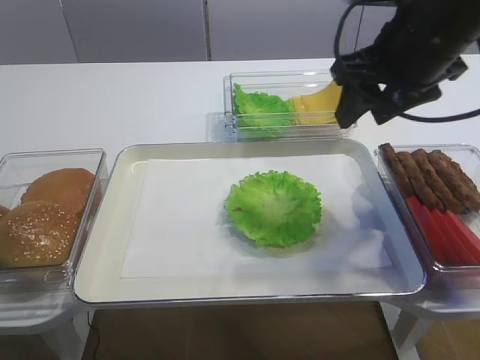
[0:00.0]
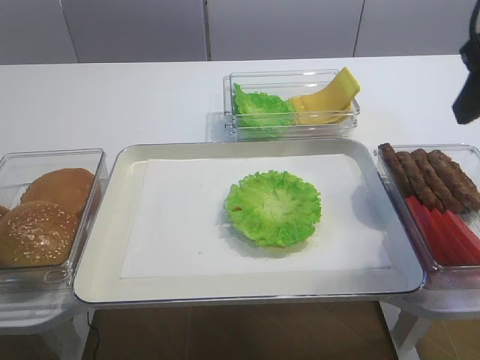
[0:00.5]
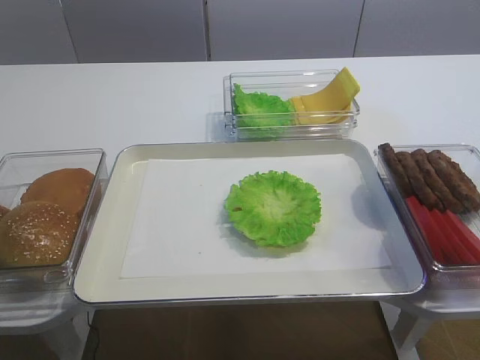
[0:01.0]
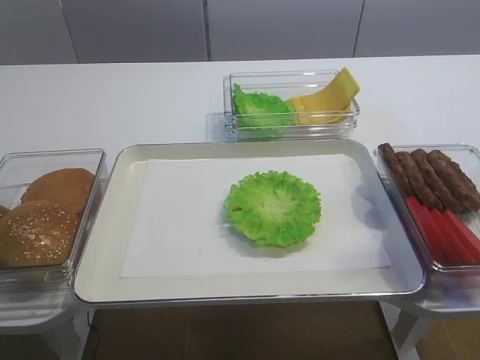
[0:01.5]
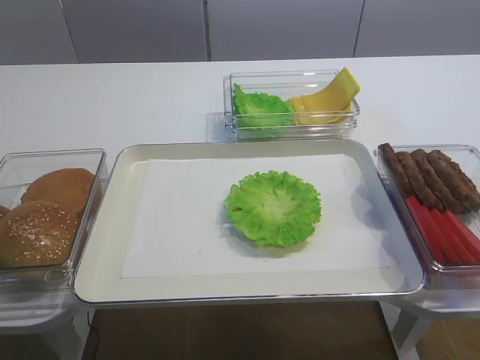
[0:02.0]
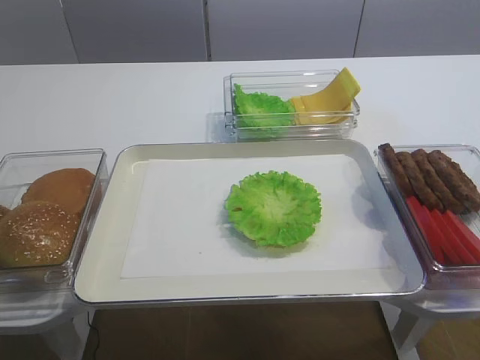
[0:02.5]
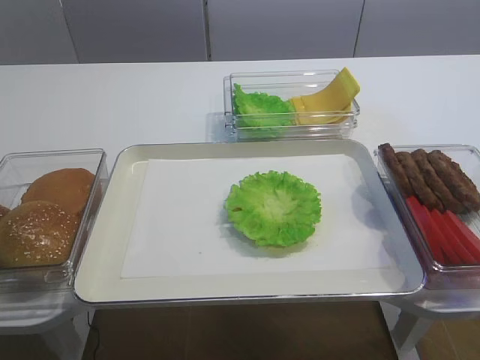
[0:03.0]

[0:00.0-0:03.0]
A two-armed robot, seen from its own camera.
0:00.0 to 0:01.5: The right gripper shifts roughly 30 cm backward.

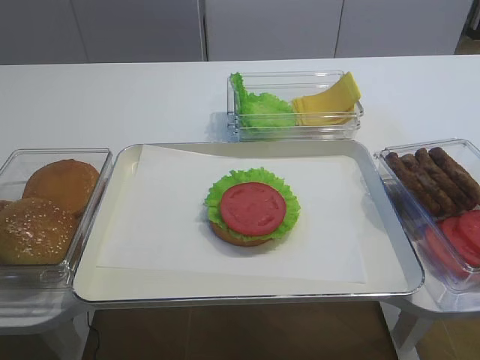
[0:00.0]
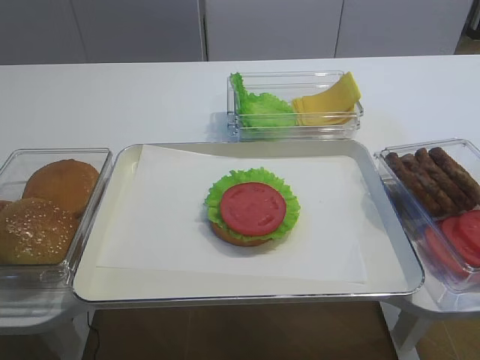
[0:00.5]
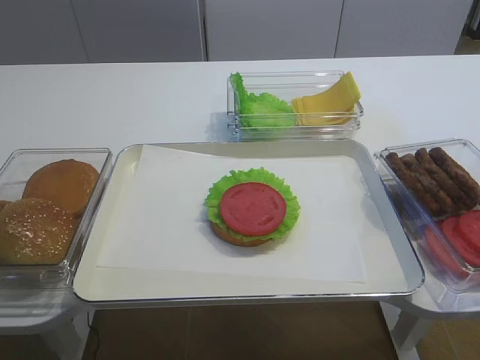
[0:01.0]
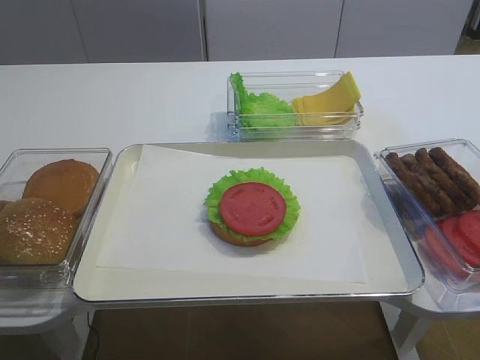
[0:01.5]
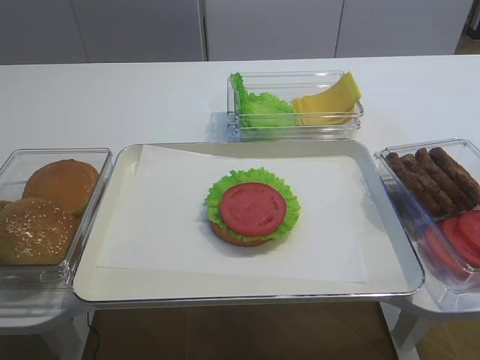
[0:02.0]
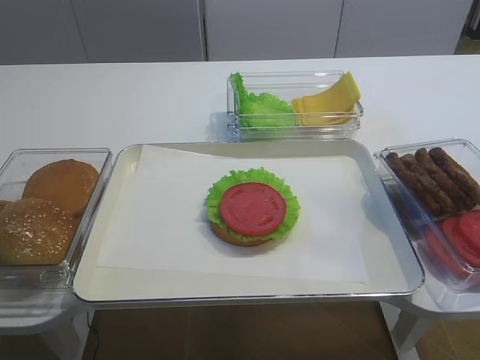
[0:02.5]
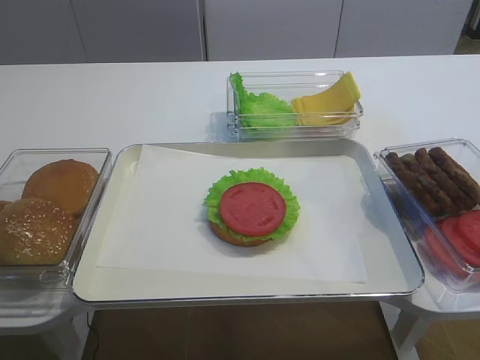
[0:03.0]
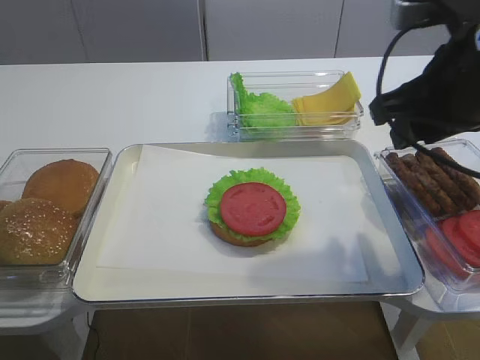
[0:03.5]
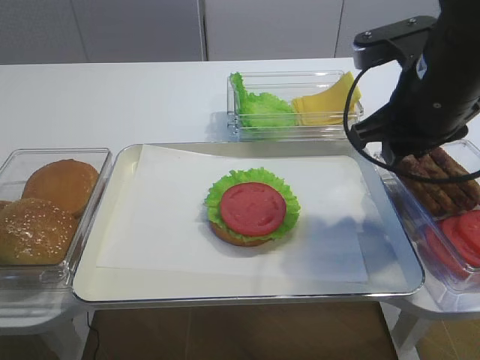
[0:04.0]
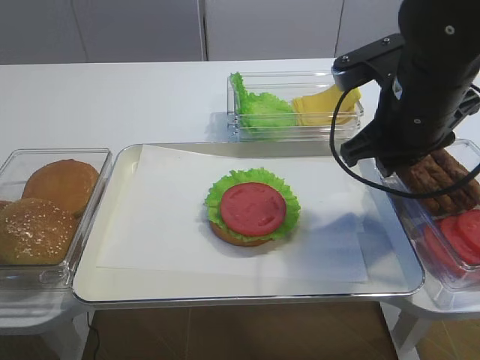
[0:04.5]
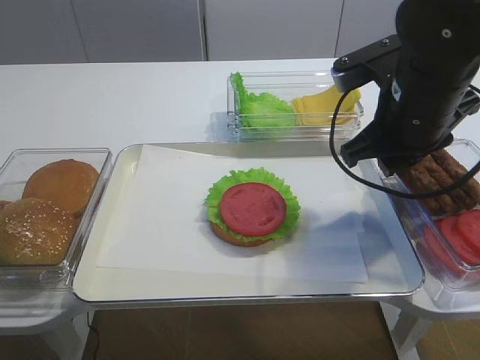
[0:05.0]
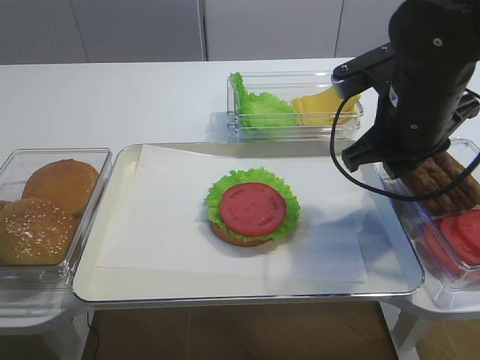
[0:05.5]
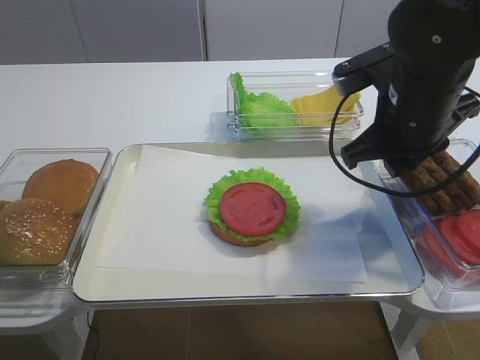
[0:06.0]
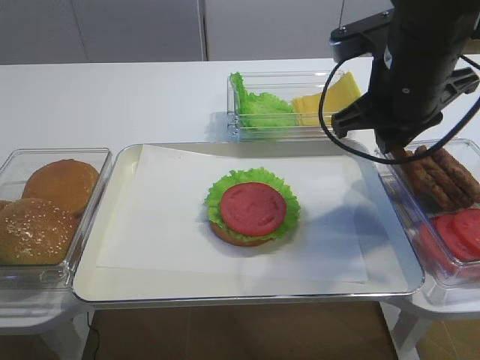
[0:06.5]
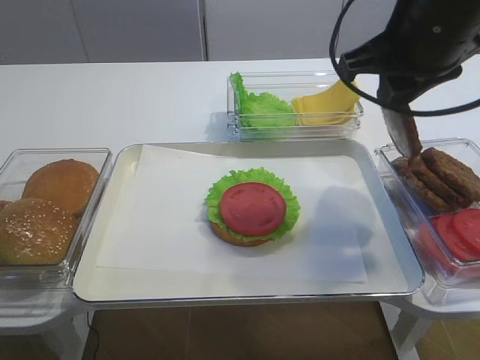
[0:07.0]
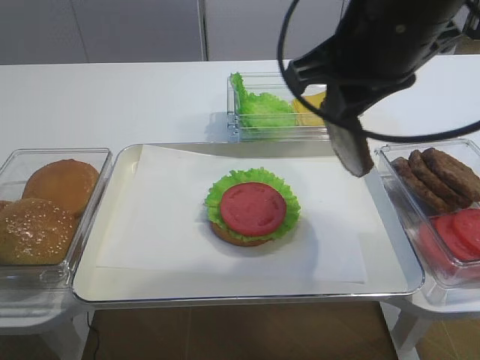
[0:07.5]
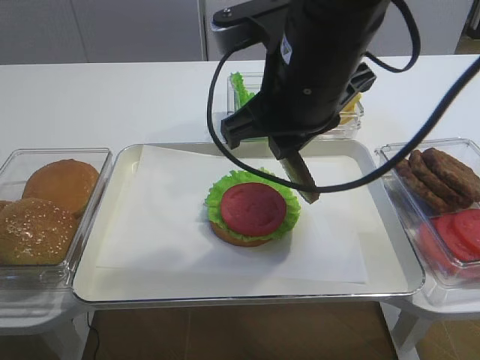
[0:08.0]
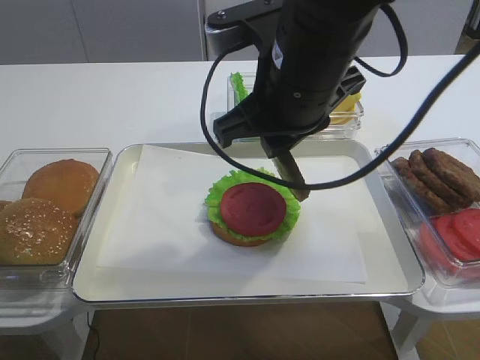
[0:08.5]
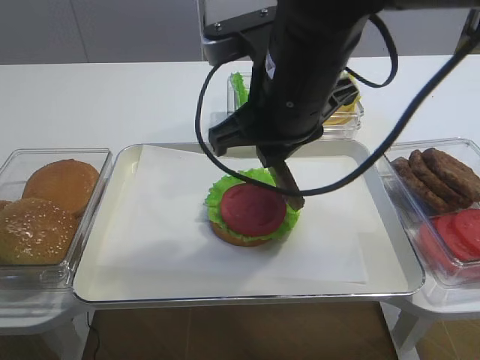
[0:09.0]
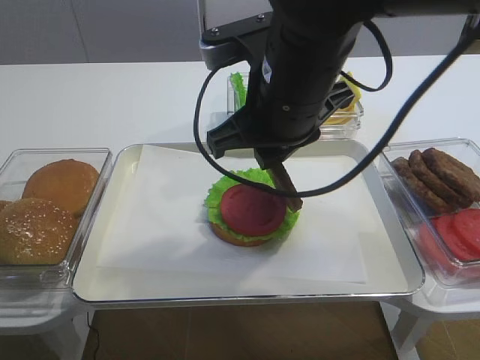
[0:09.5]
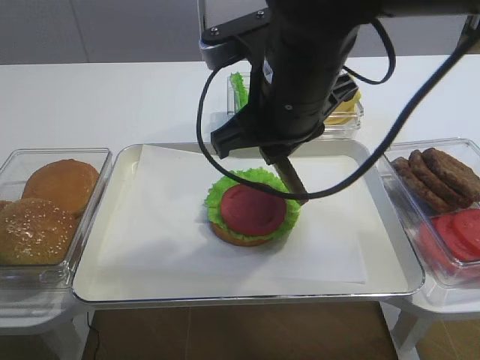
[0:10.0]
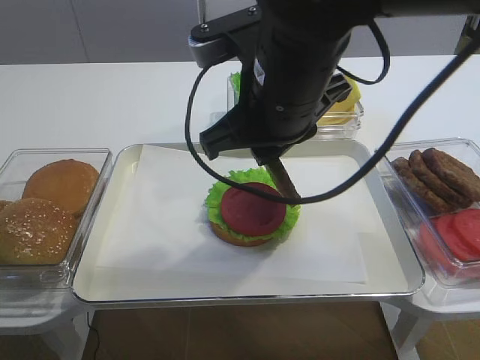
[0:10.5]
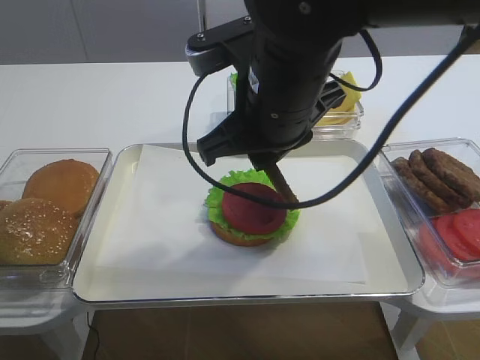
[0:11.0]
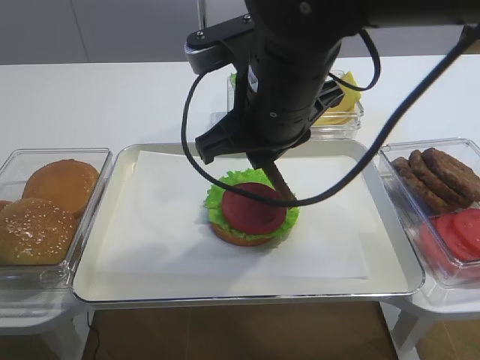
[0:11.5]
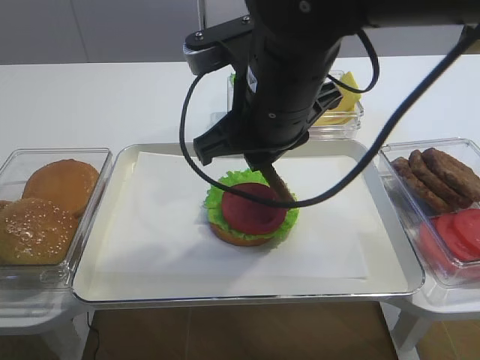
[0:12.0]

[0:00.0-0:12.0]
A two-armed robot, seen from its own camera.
Step, 0:00.0 to 0:07.0: Pick up the cutlet with the right gripper.
0:02.0 to 0:04.0: The right gripper is displaced forward by approximately 30 cm.
0:04.0 to 0:06.0: The right gripper closes its fingers.
0:06.0 to 0:08.0: The right gripper moves to the left and upward, about 10 cm.
0:08.0 to 0:10.0: The grippers move only a little.
0:10.0 to 0:12.0: Both grippers stay about where they are.

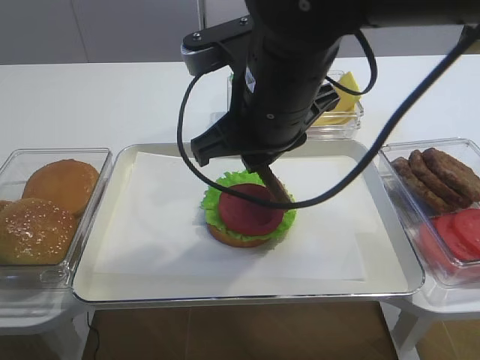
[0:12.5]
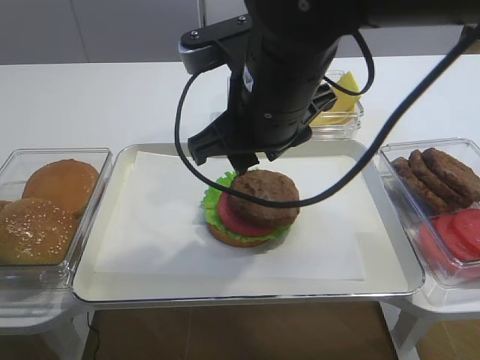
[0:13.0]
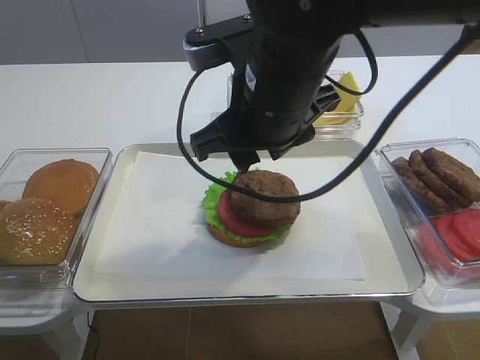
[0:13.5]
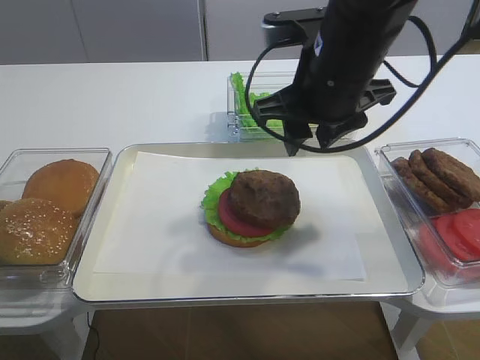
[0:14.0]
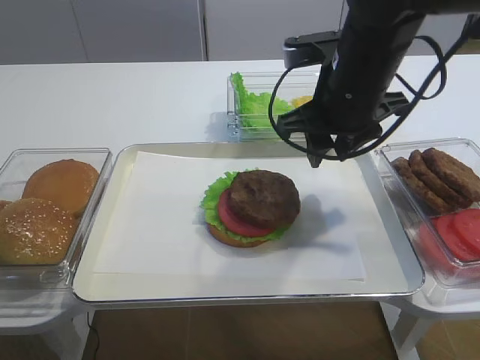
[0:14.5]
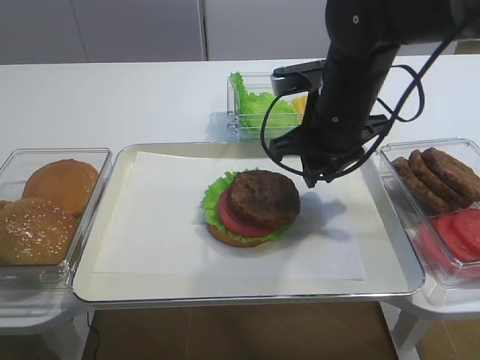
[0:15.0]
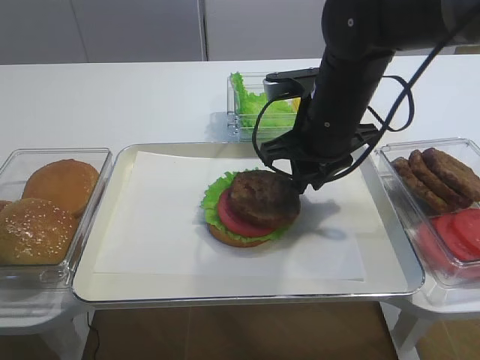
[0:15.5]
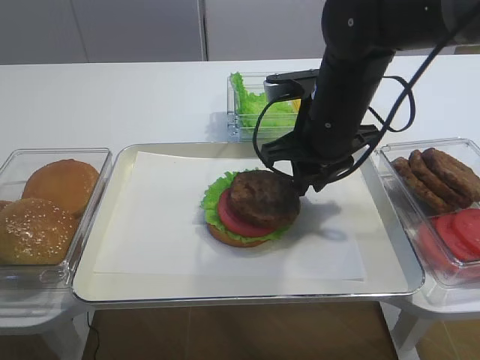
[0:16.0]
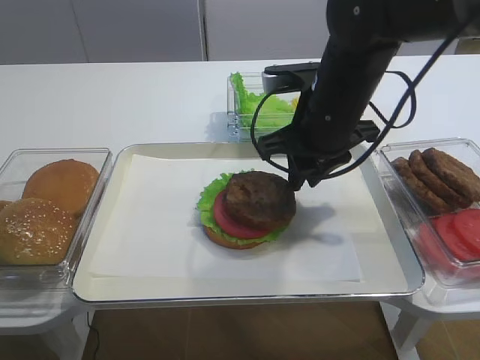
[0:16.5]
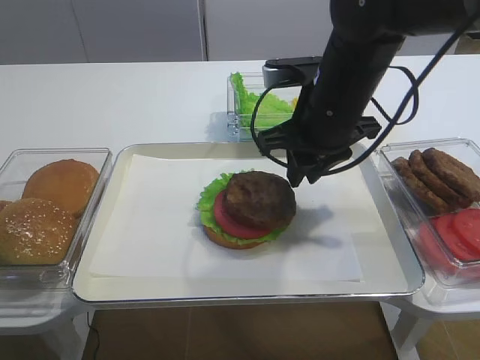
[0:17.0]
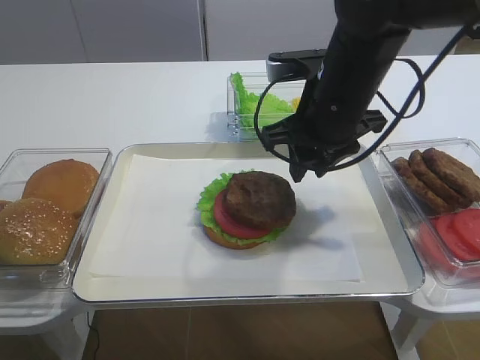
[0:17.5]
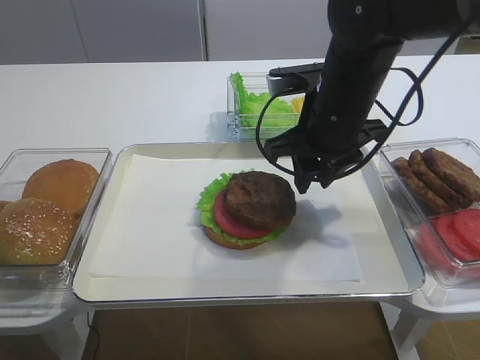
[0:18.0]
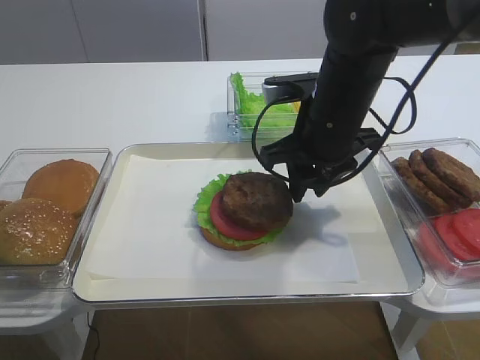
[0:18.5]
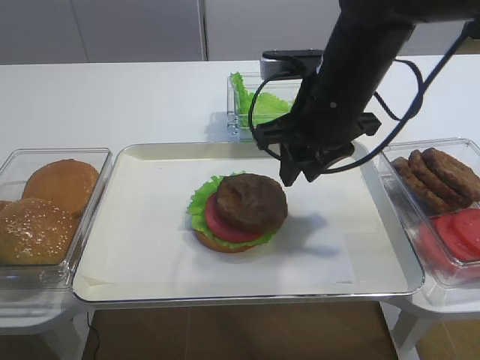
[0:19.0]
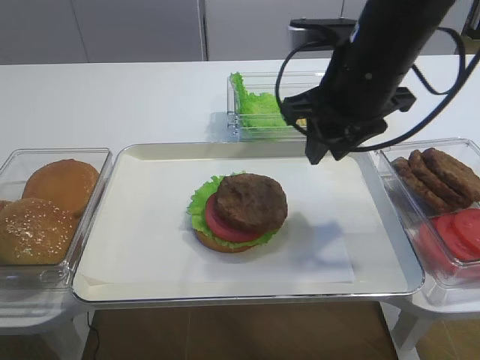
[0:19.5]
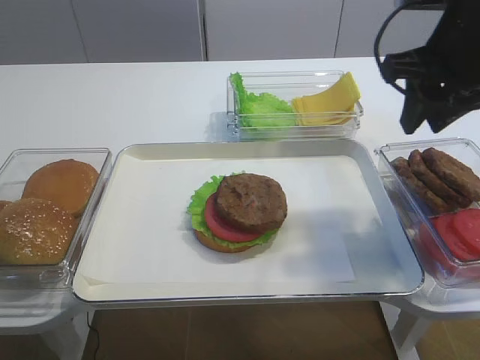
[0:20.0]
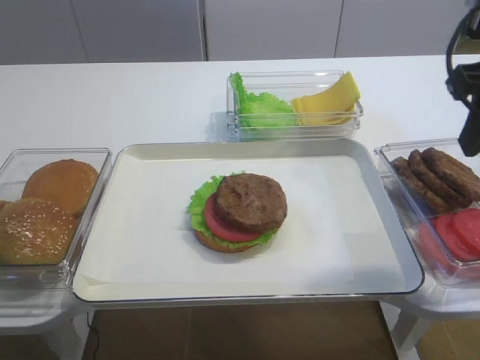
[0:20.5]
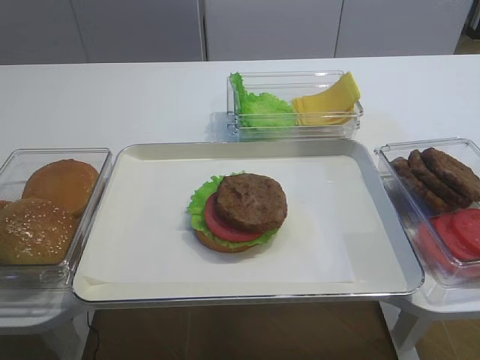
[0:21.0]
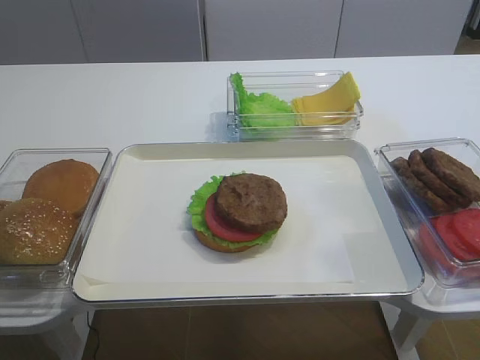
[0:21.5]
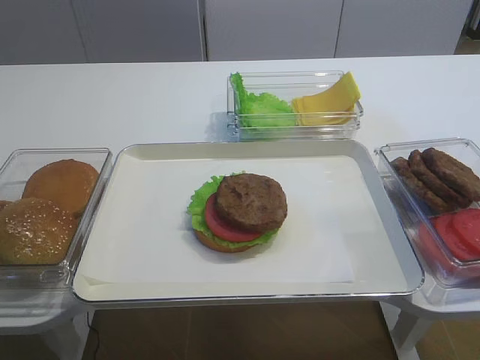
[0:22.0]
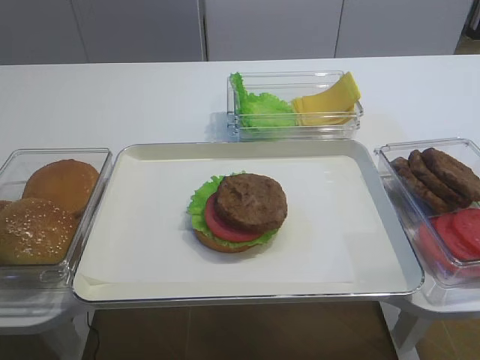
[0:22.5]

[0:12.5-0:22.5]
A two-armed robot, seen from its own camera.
0:12.5 to 0:14.5: The right gripper is displaced to the right and forward by approximately 10 cm, and opens up.
0:14.5 to 0:16.5: The right gripper closes.
0:16.5 to 0:18.5: The right gripper opens its fingers.
0:18.5 to 0:20.5: The right gripper goes approximately 20 cm to the right, upward and backward.
0:20.5 to 0:22.5: The right gripper heads backward, covering roughly 25 cm.
